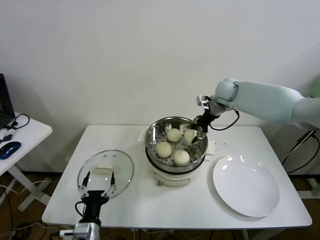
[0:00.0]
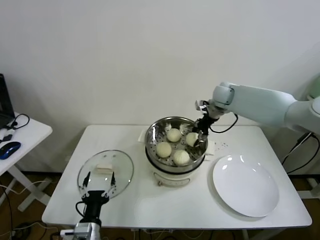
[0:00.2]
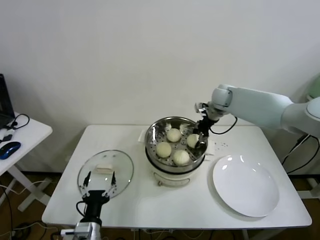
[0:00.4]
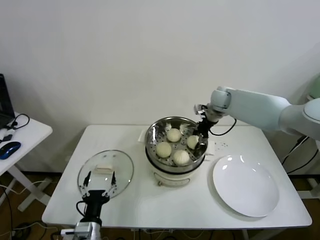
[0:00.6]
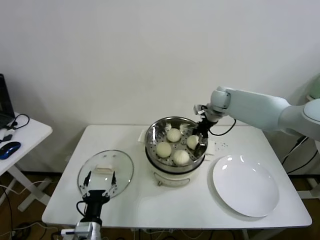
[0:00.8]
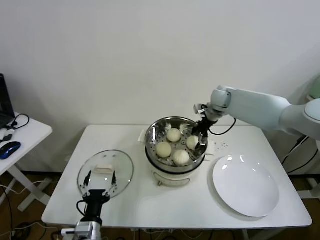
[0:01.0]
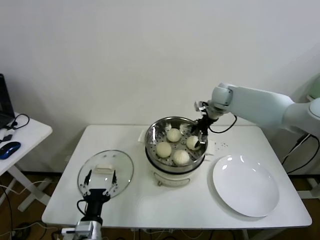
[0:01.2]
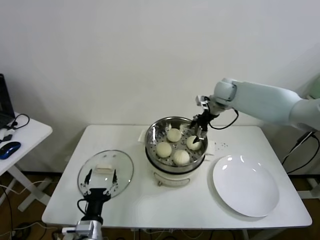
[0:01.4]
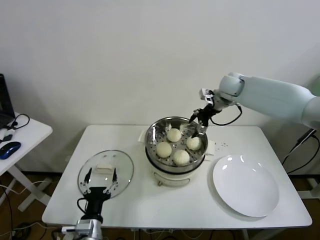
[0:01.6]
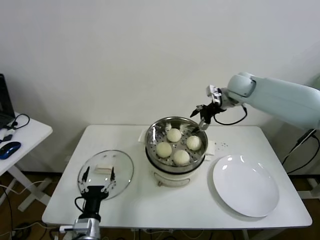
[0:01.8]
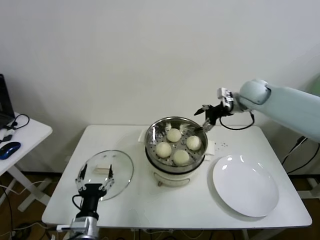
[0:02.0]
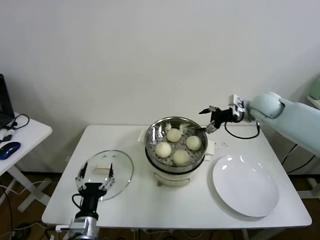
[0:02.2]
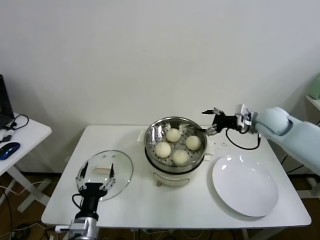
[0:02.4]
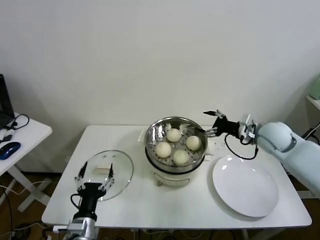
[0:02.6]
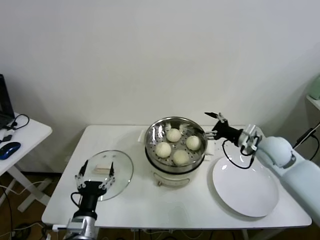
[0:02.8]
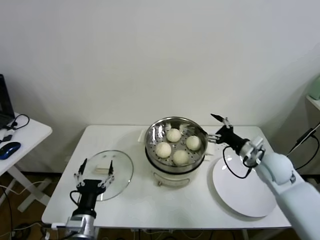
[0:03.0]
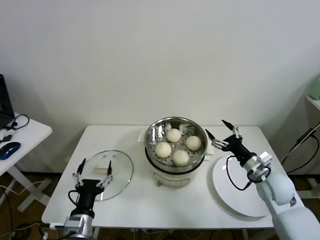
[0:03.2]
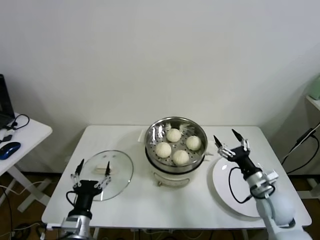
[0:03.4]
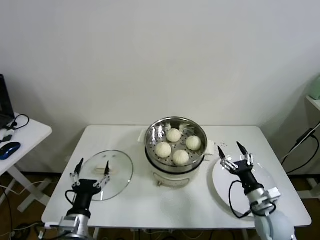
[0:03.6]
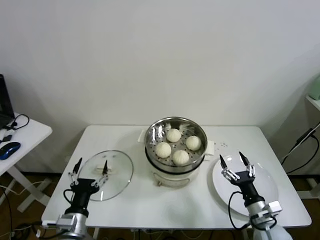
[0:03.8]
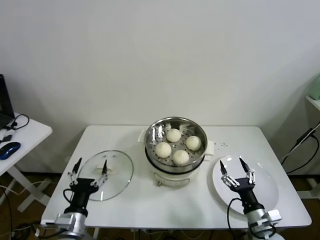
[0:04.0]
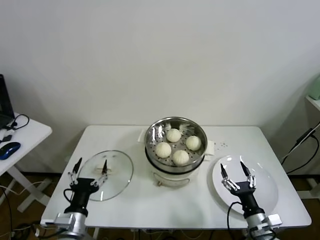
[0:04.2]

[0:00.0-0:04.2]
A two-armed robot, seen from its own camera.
Task of the whole recording: take steamed baozi put them in steamer.
0:00.0 to 0:01.4: The right gripper opens up.
0:01.4 to 0:02.8: The right gripper is displaced backward, to the right and downward by roughly 25 cm.
0:02.8 to 0:04.2: The right gripper goes about 30 cm backward and downward.
